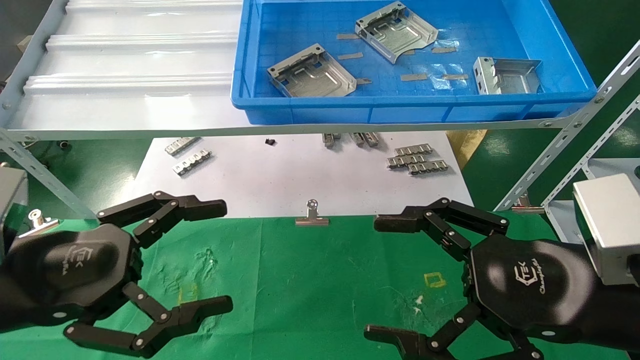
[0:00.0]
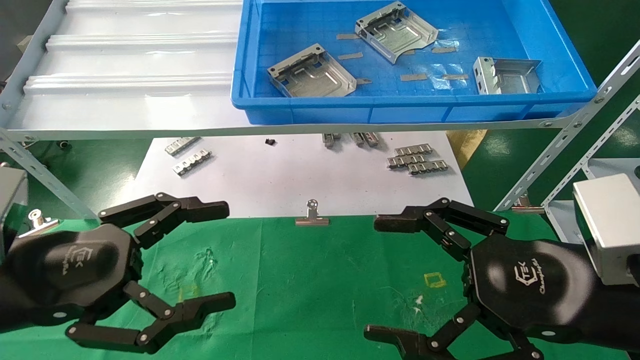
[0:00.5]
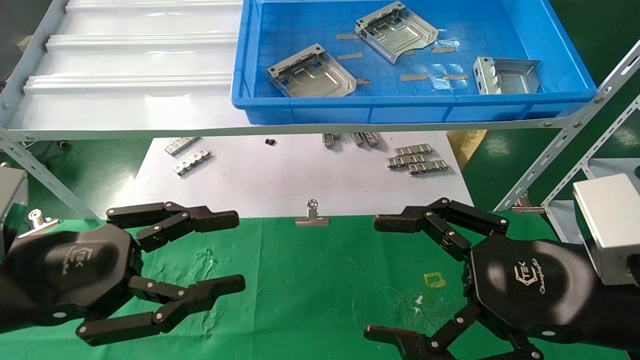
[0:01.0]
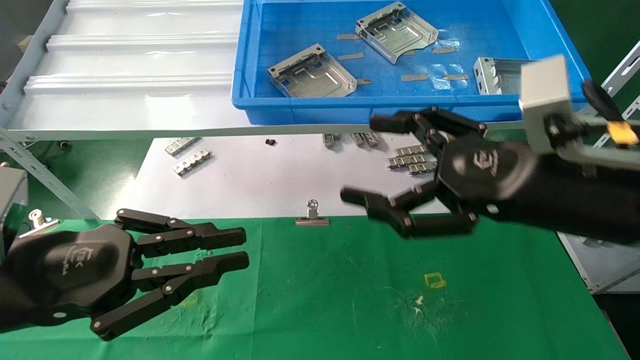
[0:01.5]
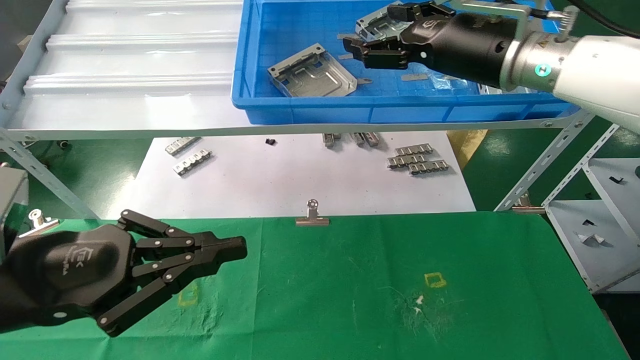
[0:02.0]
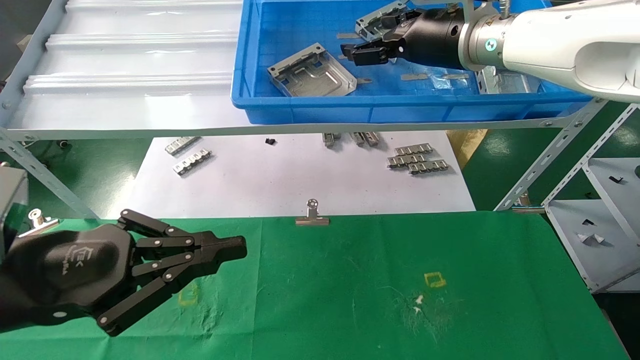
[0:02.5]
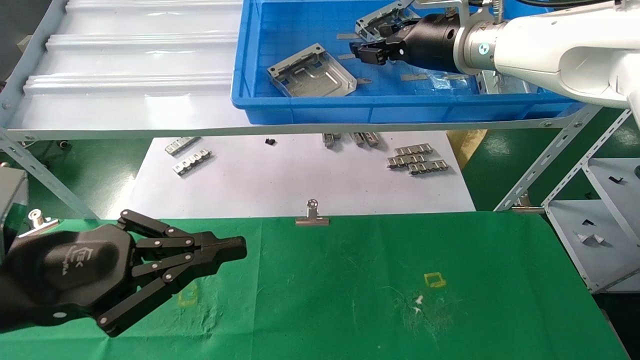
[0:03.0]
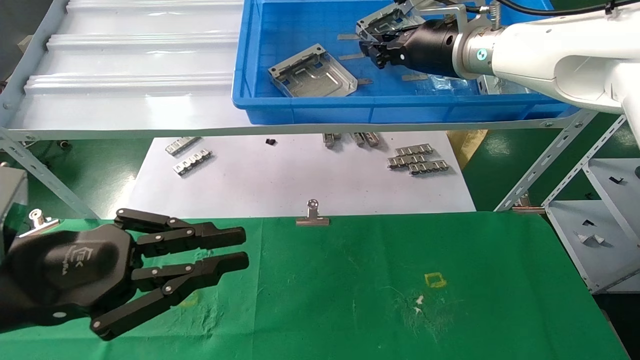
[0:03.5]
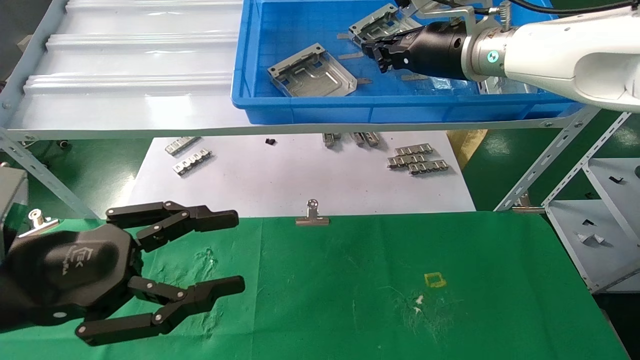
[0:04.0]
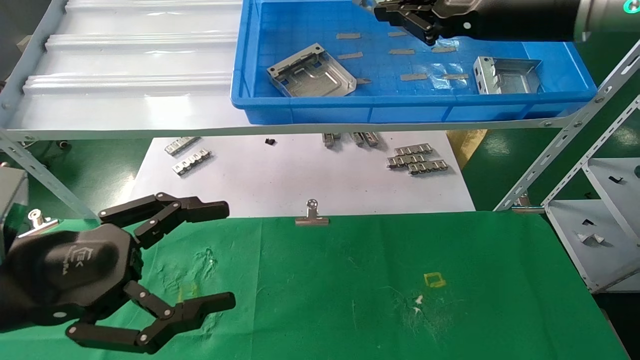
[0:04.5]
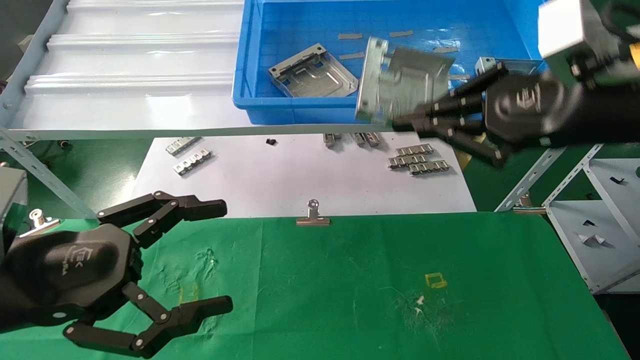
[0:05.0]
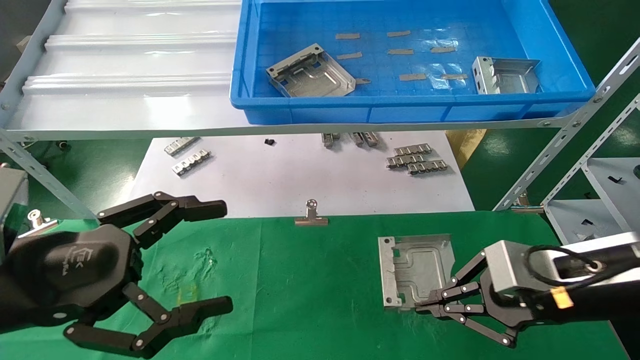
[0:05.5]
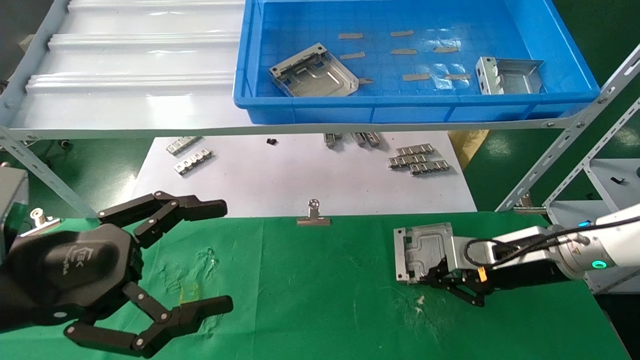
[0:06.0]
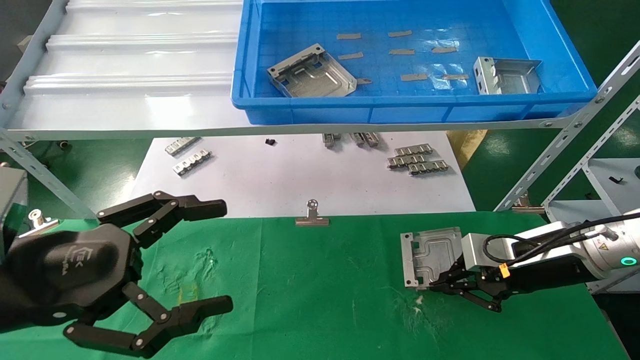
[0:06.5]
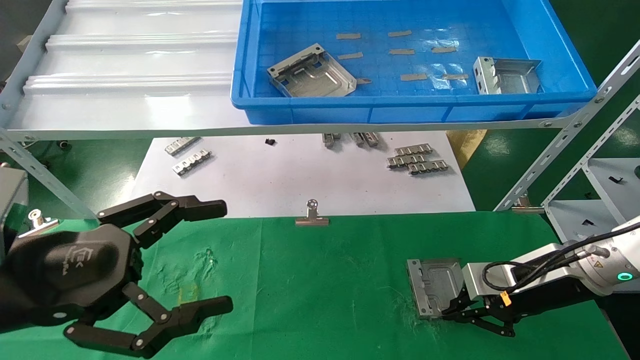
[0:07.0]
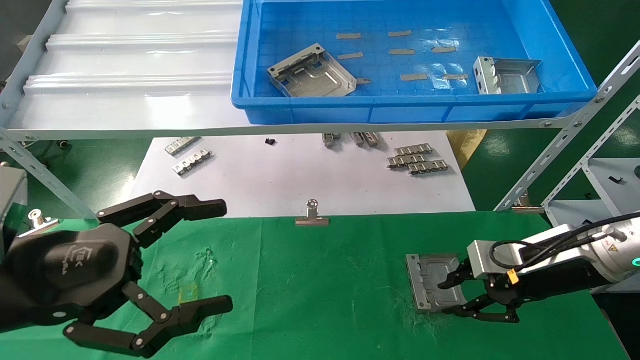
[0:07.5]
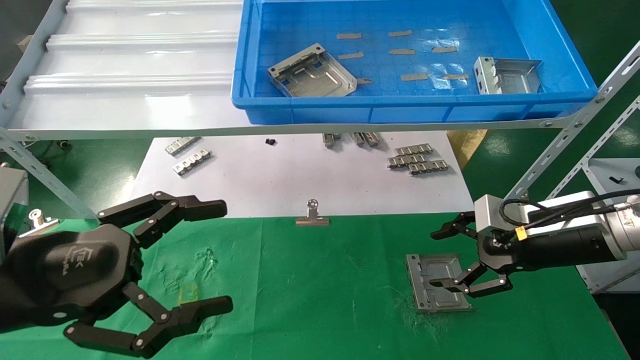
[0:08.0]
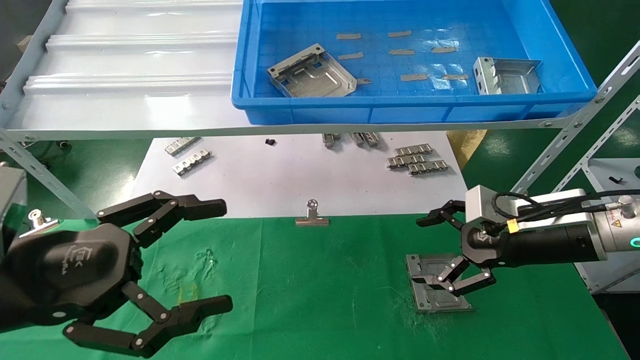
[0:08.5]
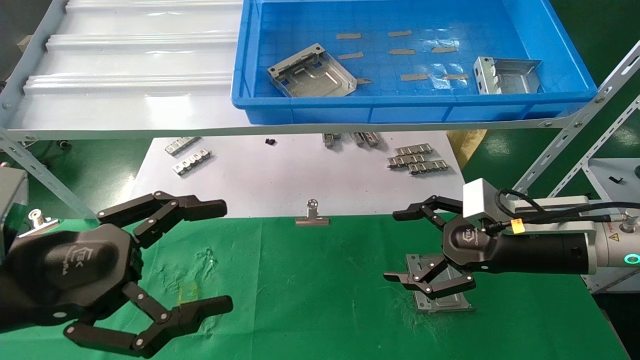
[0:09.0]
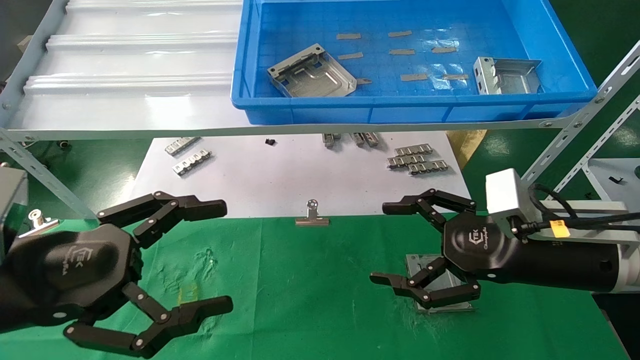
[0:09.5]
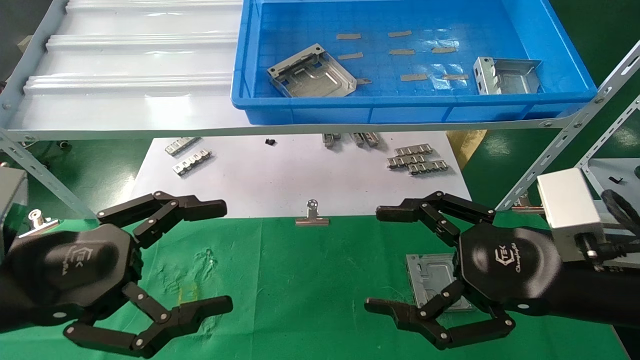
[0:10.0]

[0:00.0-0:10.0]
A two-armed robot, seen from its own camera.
Task of the whole recording: use the mechanical arm to pick up the parts and place them on the table.
Step, 0:01.5 to 0:04.5: Pick up the hard drive bracket from the feeding area.
Step, 0:05.0 to 0:07.5: Place the hard drive bracket into the box.
0:00.0 to 0:02.0: The left gripper closes up. The right gripper is displaced forward and upward by approximately 25 cm.
0:02.0 to 0:04.0: The left gripper opens its fingers, while the right gripper shifts by some 5 cm, and closes.
0:04.0 to 0:06.0: The right gripper goes roughly 25 cm downward and to the right. Meanwhile the left gripper opens up.
0:06.0 to 0:08.0: The right gripper opens its fingers.
0:08.0 to 0:10.0: The right gripper is displaced backward and to the left by some 15 cm, and opens.

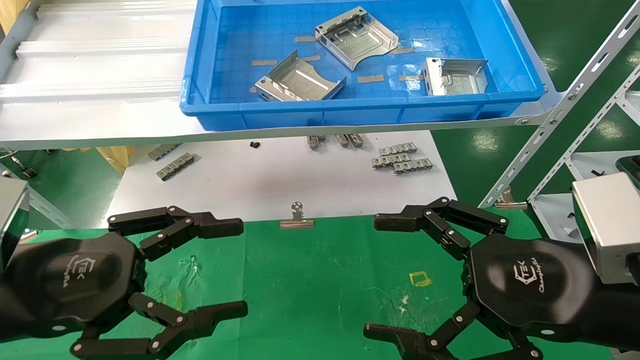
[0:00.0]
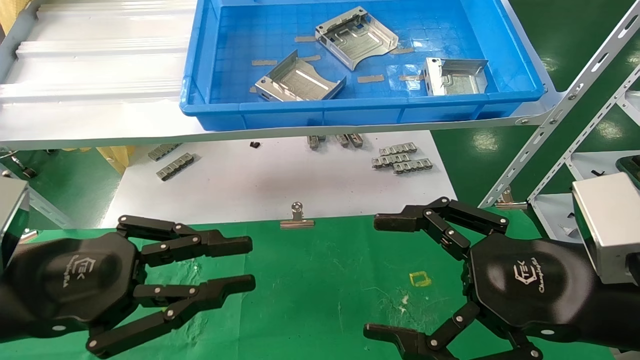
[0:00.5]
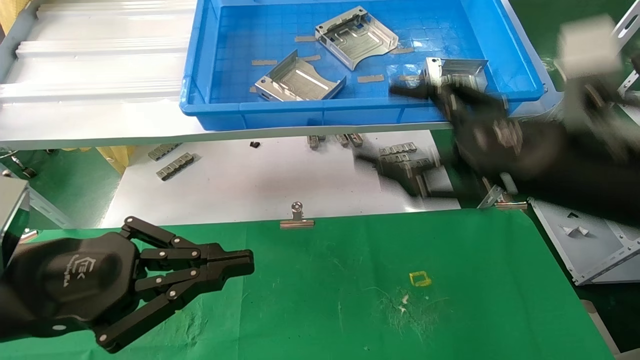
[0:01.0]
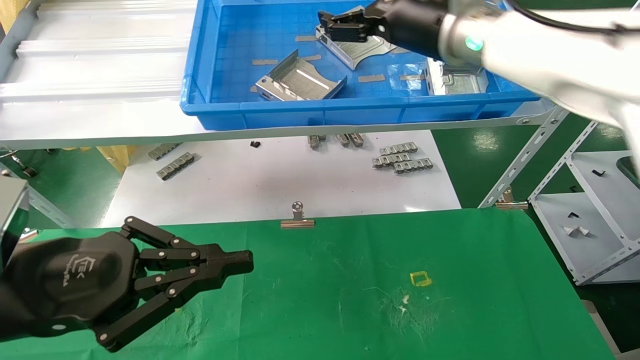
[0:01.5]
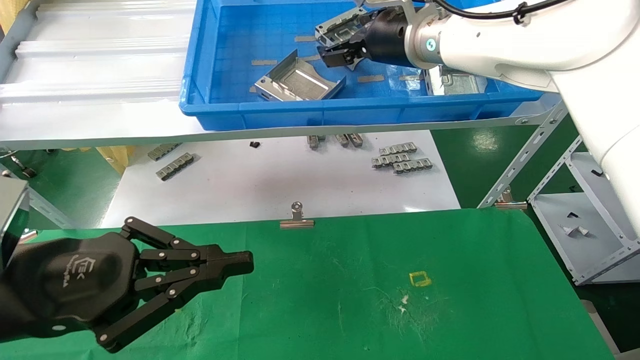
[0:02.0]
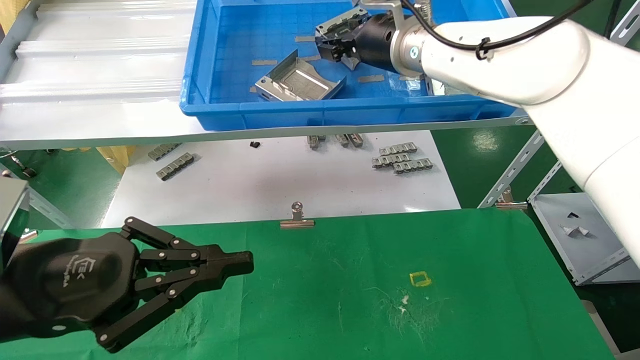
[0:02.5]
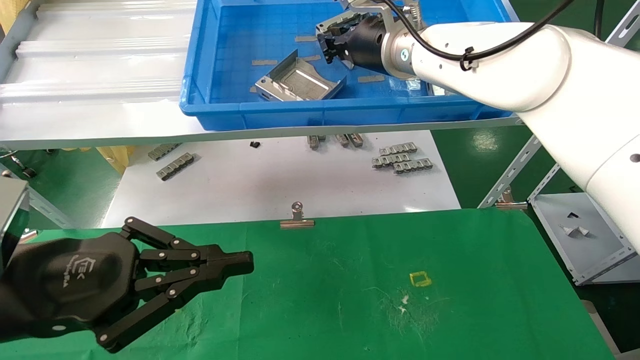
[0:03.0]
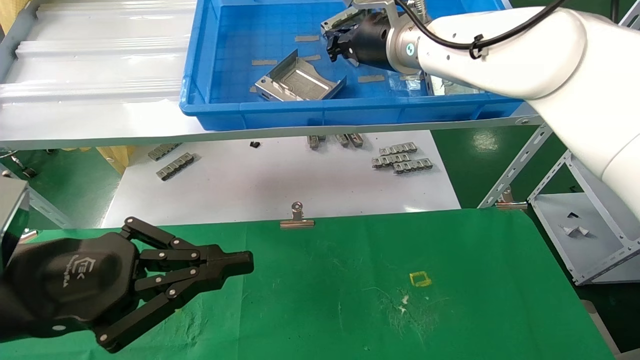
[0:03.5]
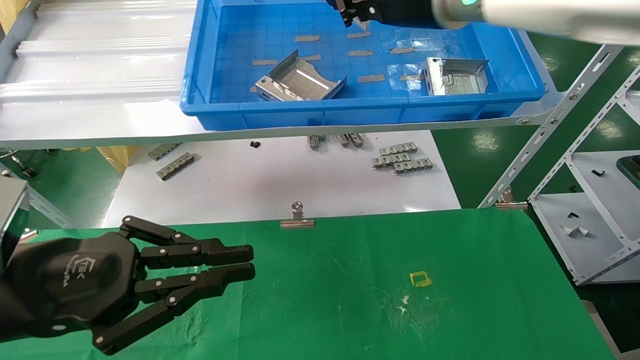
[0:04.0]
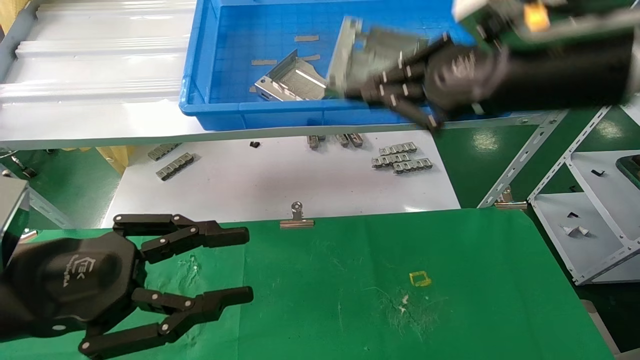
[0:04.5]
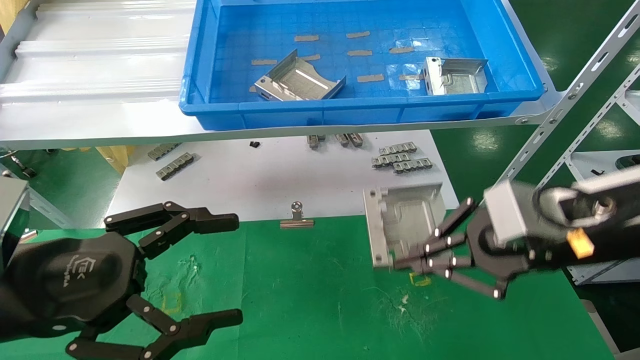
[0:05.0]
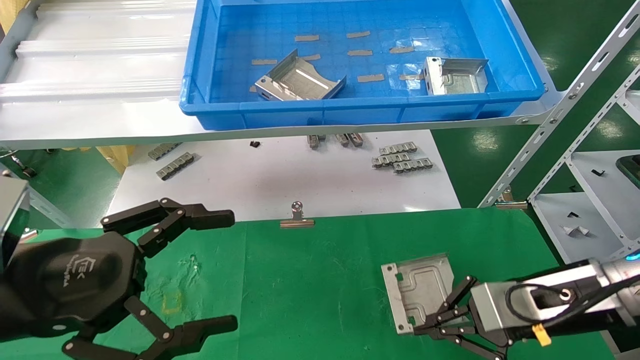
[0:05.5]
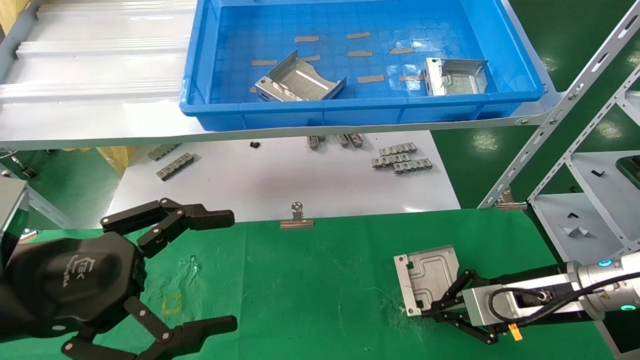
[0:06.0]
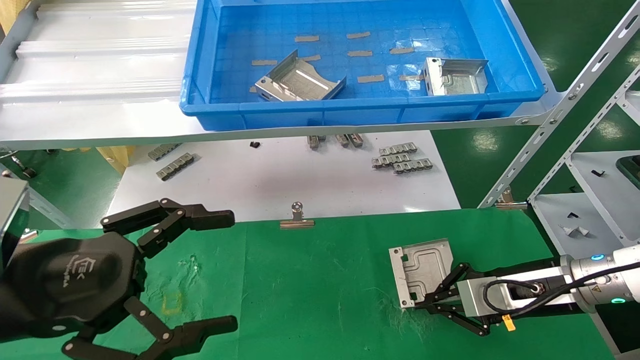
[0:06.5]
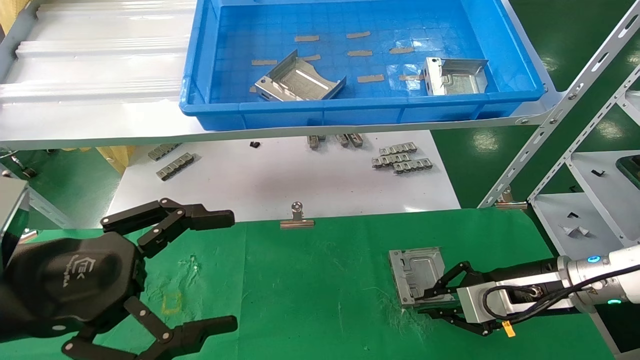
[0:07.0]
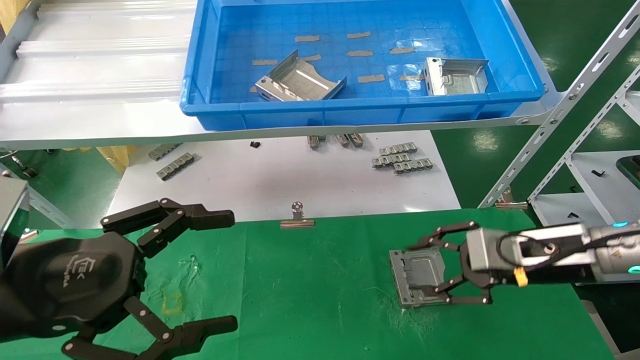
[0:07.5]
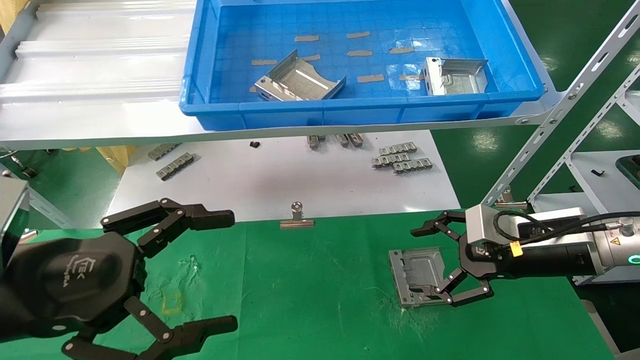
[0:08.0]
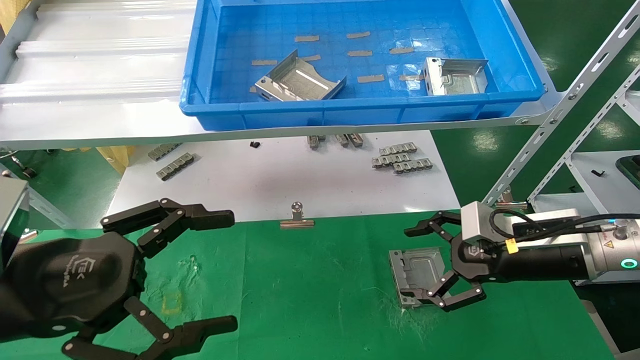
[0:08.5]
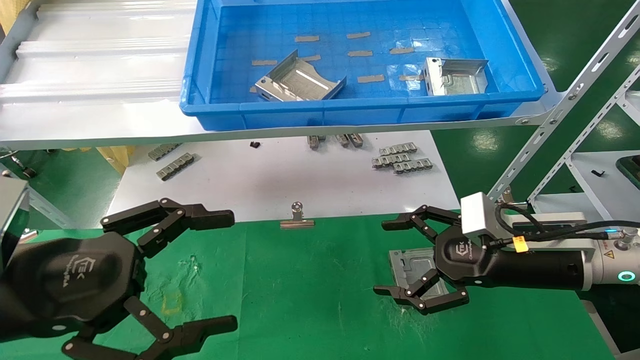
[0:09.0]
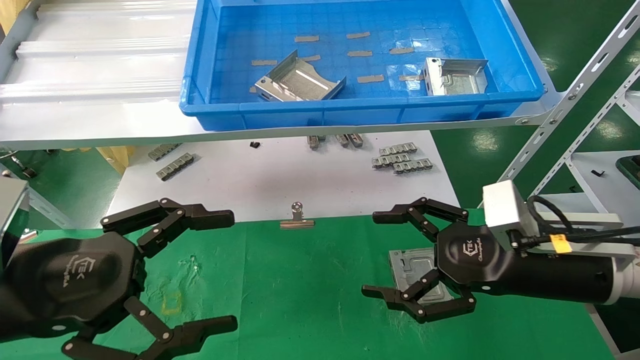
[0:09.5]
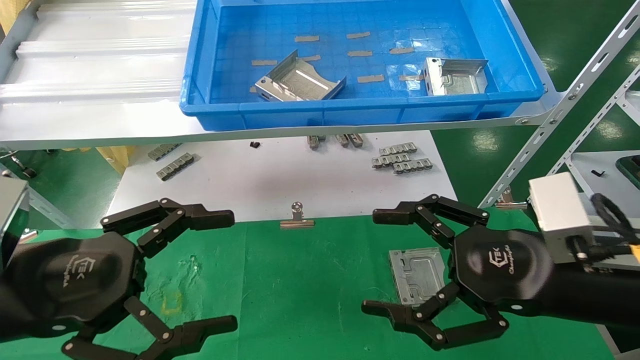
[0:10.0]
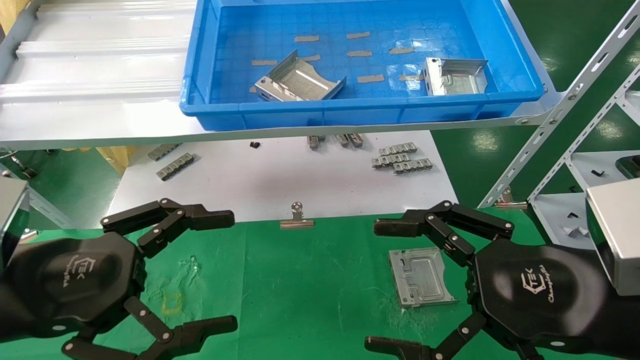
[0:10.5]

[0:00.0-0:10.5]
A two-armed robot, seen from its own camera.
Task of the whole recording: use the mechanical arm to pick up the parts and place them on the table.
Step, 0:01.5 to 0:04.0: Pick up the hard drive bracket from the feeding area.
Step, 0:04.5 to 0:07.5: Place the hard drive bracket into the box.
0:00.0 to 0:02.0: The left gripper closes up, while the right gripper goes some 35 cm forward, upward and to the left.
0:02.0 to 0:04.0: The right gripper shifts about 5 cm backward, and closes.
0:04.0 to 0:06.5: The left gripper opens its fingers, while the right gripper moves downward and to the right, roughly 35 cm.
0:06.5 to 0:08.5: The right gripper goes roughly 5 cm upward, and opens.
0:08.5 to 0:10.5: The right gripper travels backward by about 15 cm.
